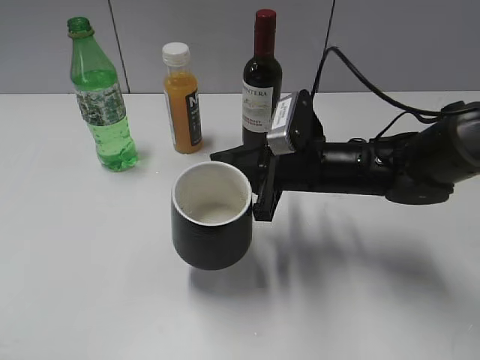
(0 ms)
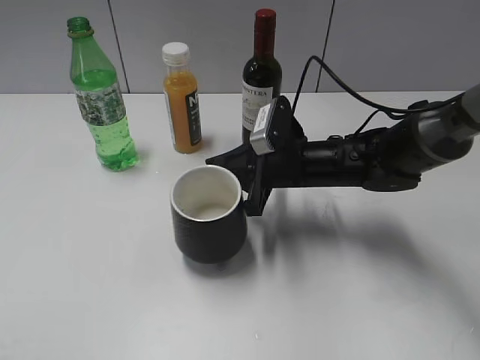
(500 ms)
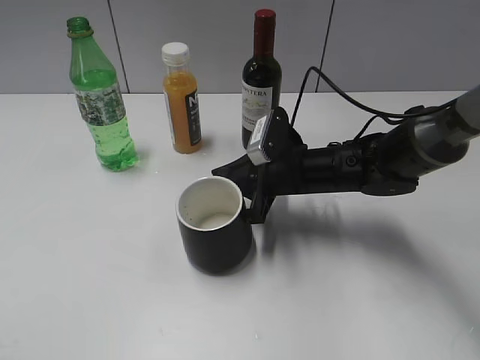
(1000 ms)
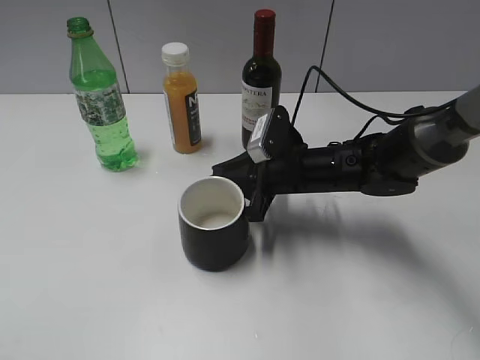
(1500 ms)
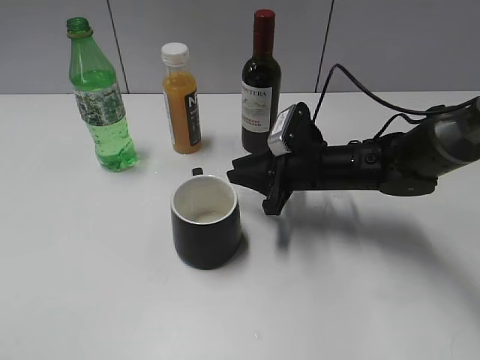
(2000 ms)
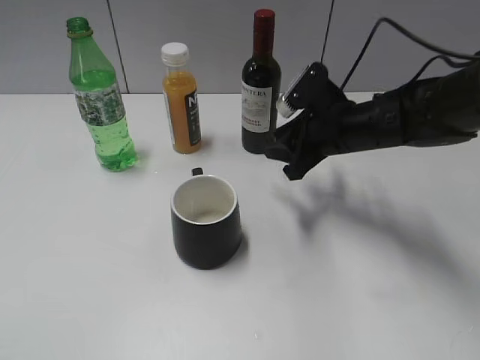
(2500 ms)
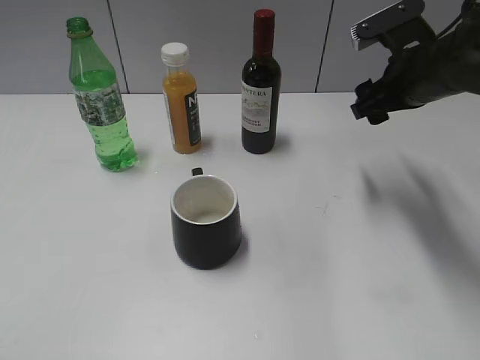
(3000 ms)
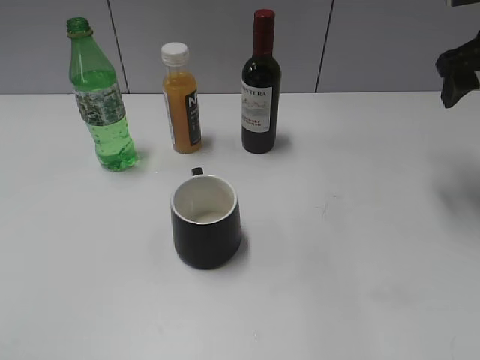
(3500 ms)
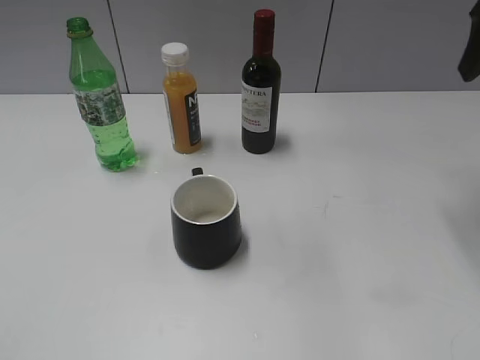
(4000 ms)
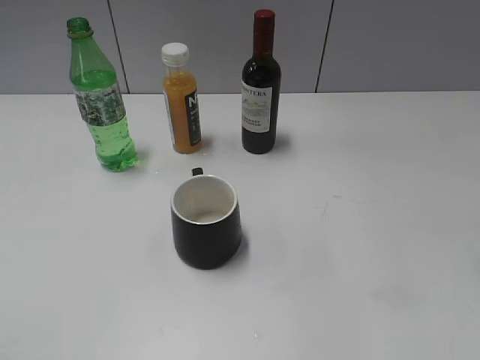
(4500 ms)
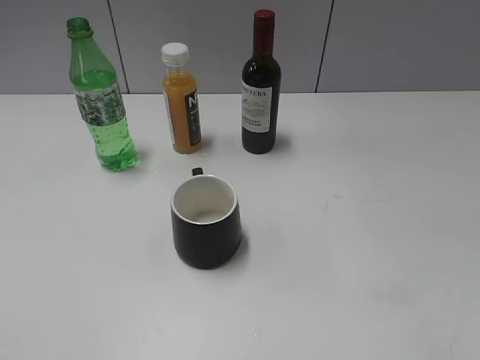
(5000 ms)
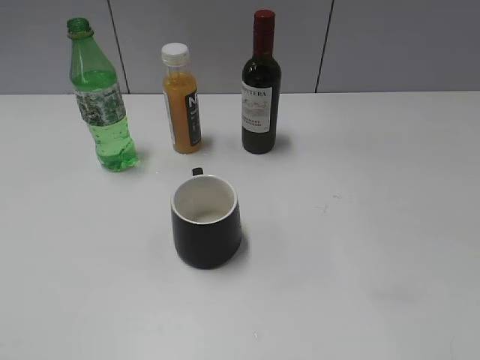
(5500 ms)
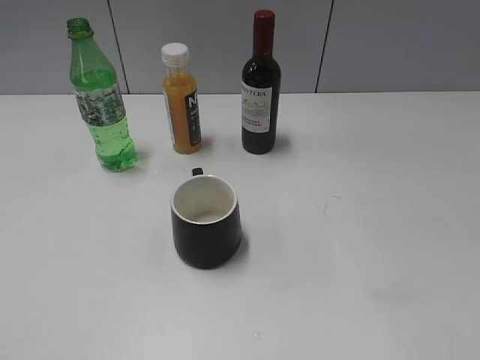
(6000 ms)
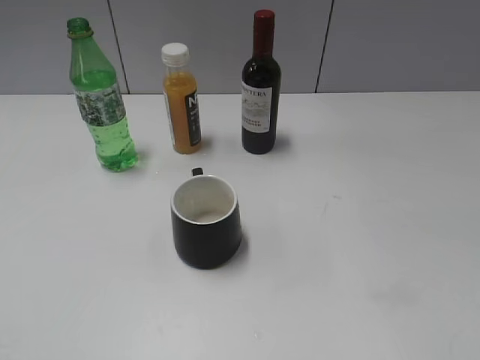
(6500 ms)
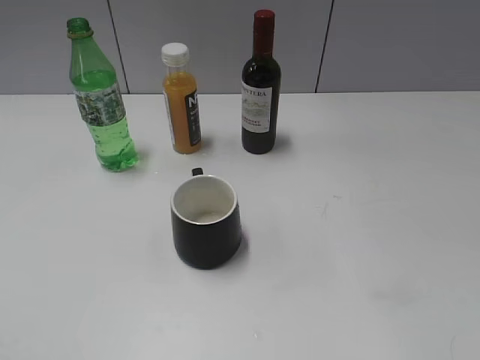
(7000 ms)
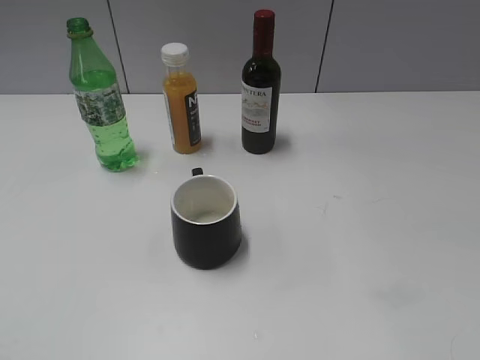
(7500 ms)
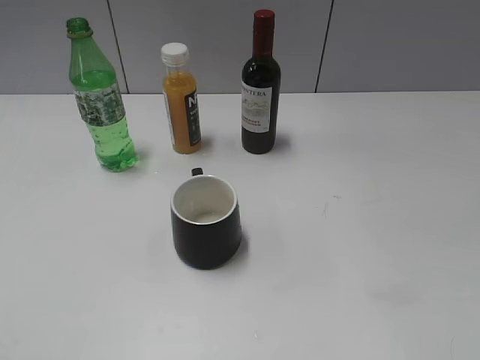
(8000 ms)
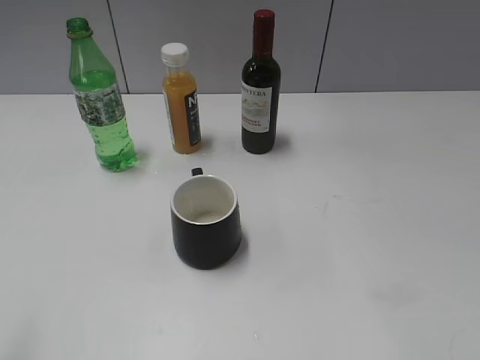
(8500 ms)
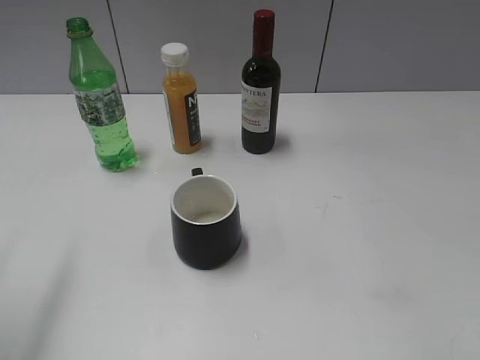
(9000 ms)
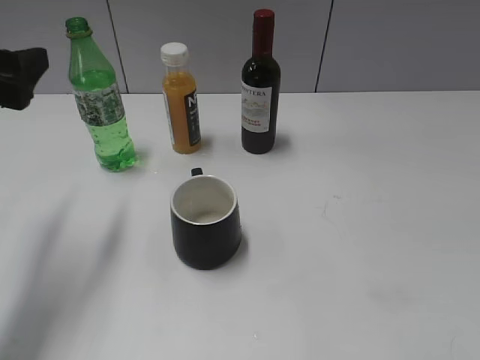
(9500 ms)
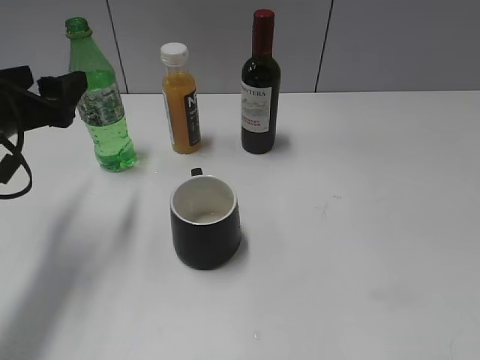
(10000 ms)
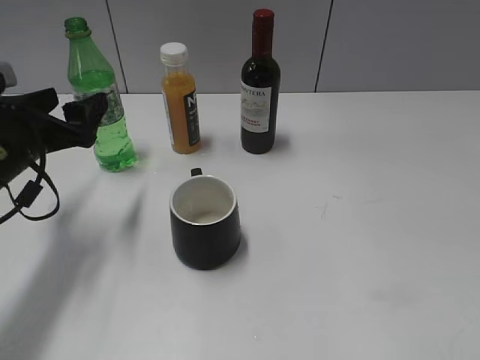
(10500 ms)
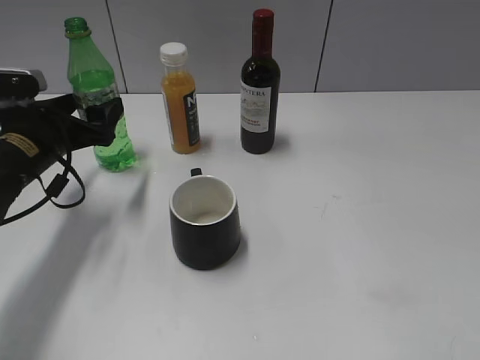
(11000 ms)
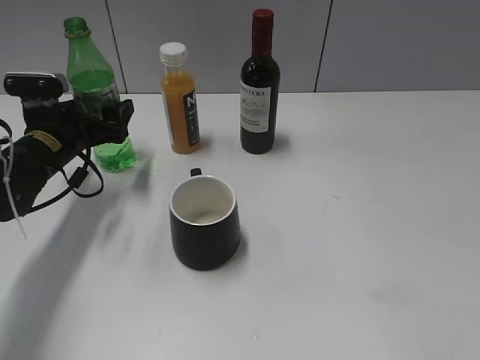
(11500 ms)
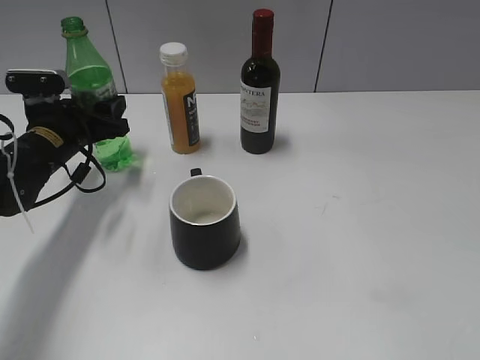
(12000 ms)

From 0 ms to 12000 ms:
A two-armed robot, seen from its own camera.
From 0 ms to 2000 ms: The right gripper ends up some 5 cm from where it was.
From 2000 ms to 4000 ms: The right gripper travels upward and to the right by roughly 30 cm, and opens up.
From 4000 ms to 6000 ms: The right gripper shifts approximately 30 cm backward.
From 8000 ms to 10000 ms: The left gripper moves forward, roughly 30 cm.
From 10000 ms to 12000 ms: The left gripper heads forward and downward, covering approximately 15 cm, and closes up.

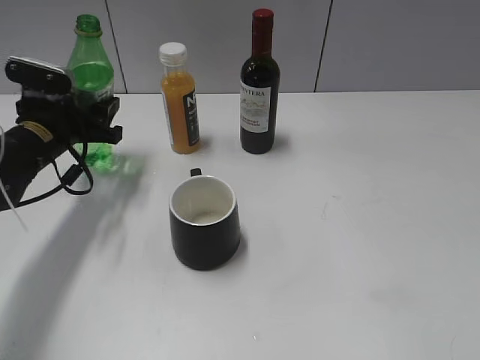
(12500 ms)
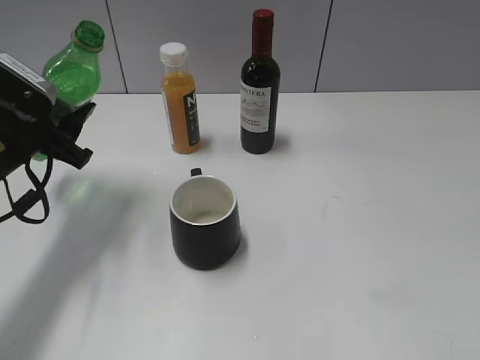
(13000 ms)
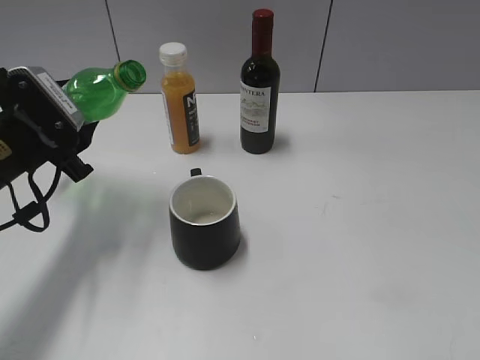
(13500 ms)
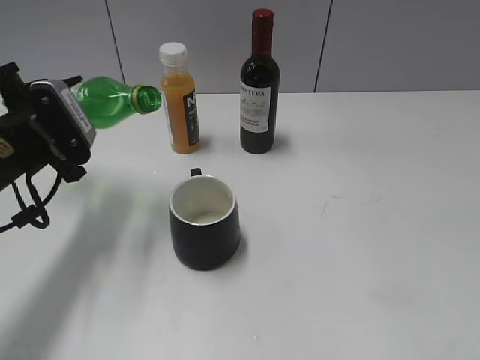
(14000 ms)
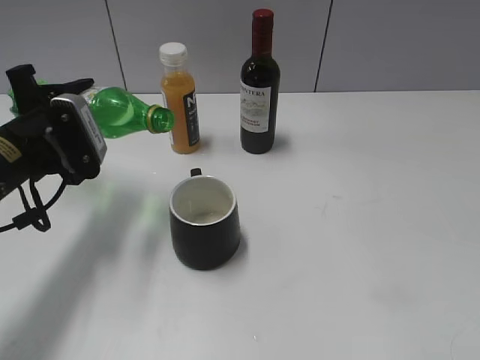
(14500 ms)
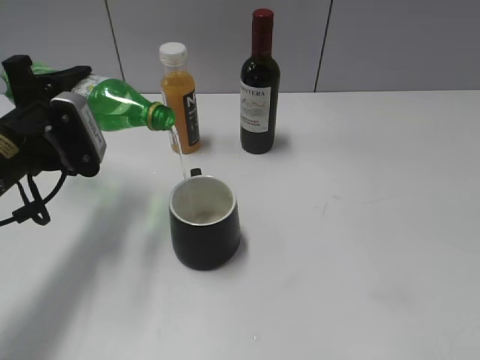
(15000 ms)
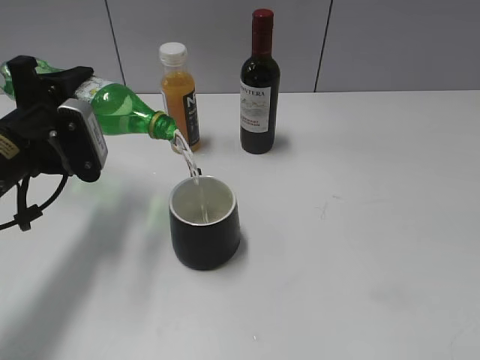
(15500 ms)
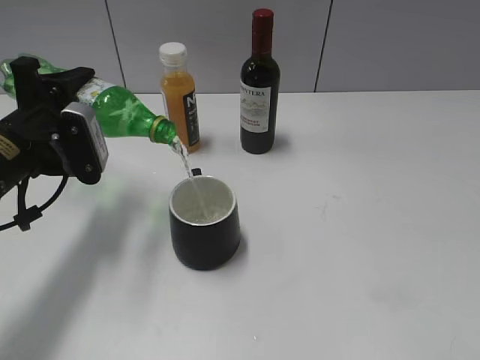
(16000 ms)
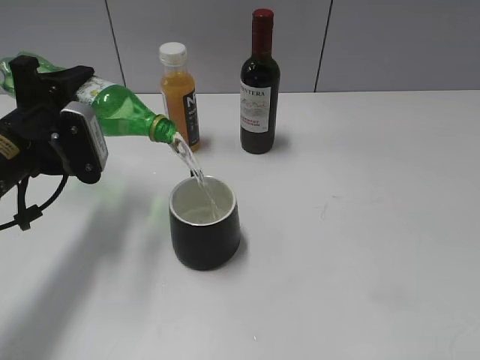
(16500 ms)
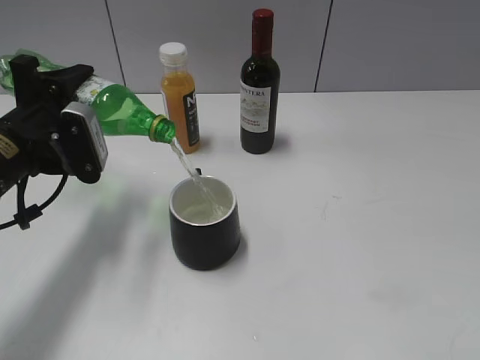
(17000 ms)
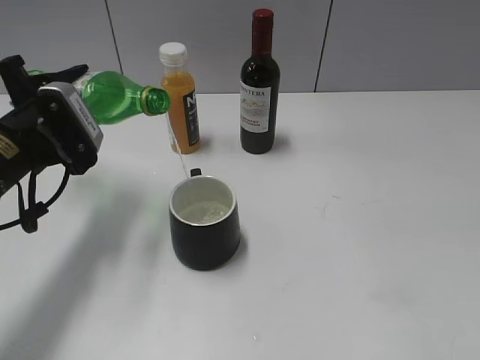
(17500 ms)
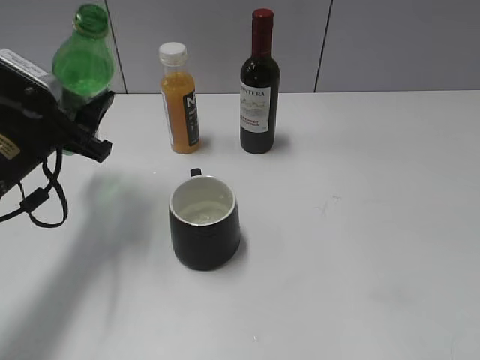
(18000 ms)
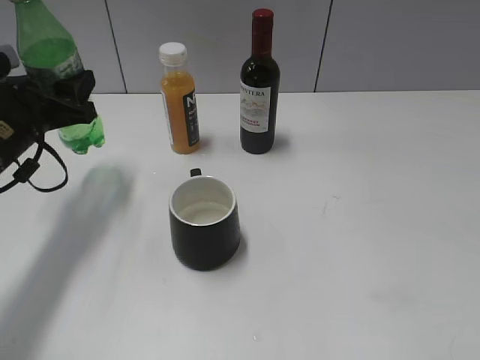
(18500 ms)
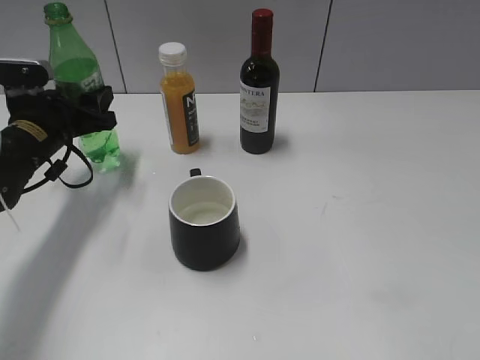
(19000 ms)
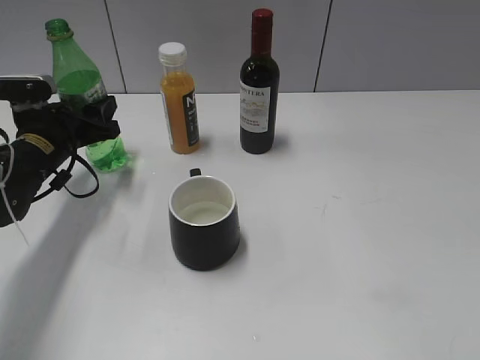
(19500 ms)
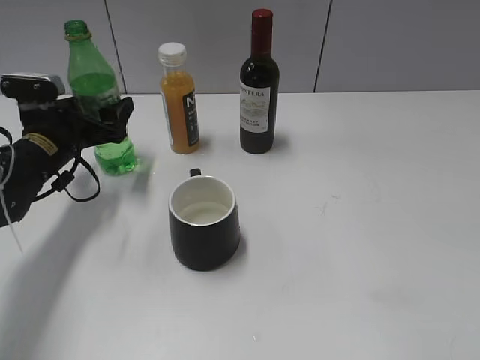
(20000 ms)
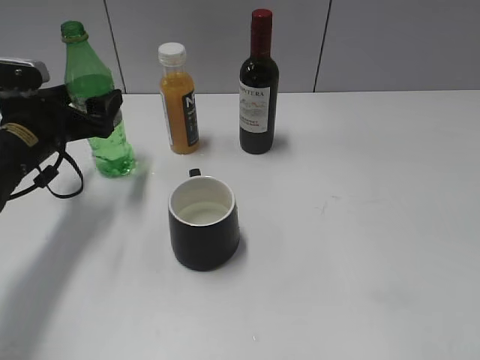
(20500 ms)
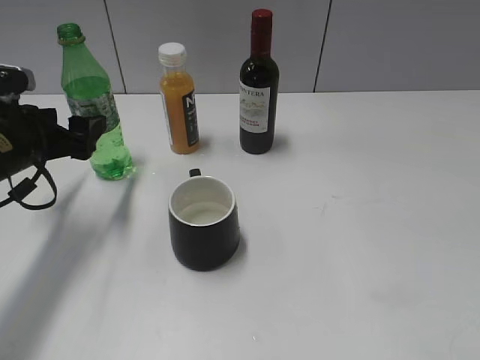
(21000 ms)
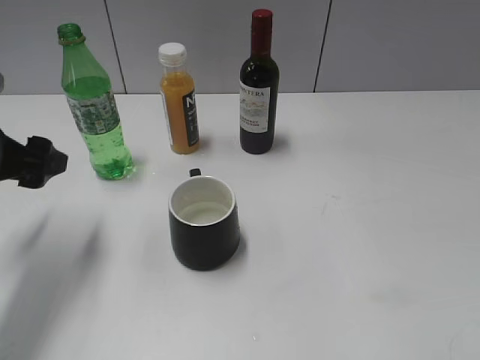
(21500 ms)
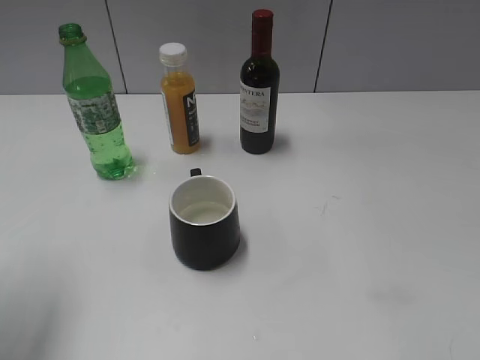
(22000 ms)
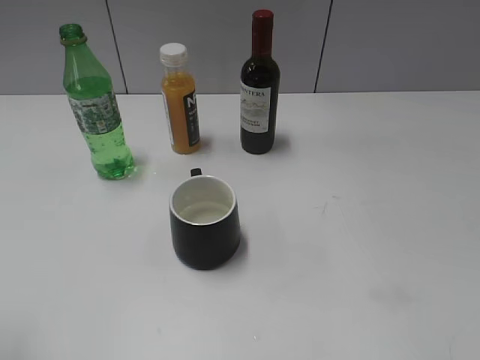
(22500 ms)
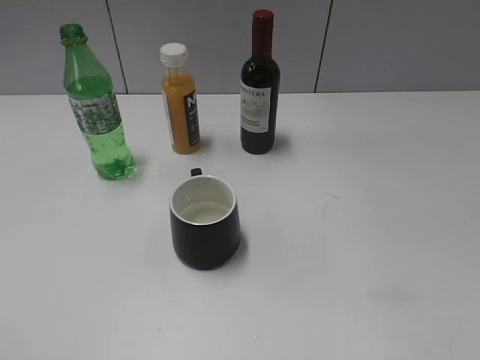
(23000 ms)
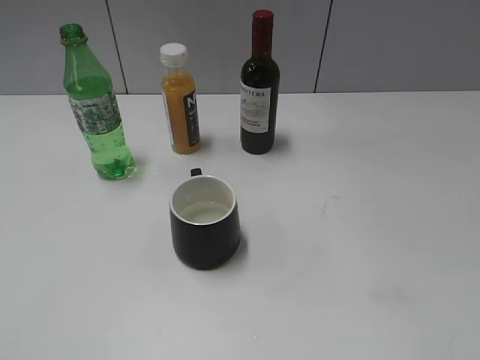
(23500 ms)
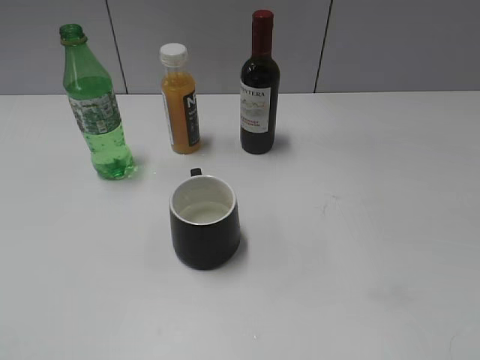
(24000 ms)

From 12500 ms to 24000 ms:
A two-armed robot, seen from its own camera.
Step, from 12500 ms to 17500 ms: Pour the sprite from bottle to cup with left gripper.
Step, from 18000 ms to 20500 ms: Place the sprite bottle on the table with left gripper.
From 12500 ms to 14500 ms: The left gripper moves backward, roughly 5 cm.
From 14500 ms to 16500 ms: There are only small adjustments of the grippers.
From 18500 ms to 20000 ms: The left gripper is displaced downward by about 5 cm, and opens.
From 20000 ms to 22000 ms: The left gripper travels backward and upward by approximately 25 cm.
From 22000 ms to 24000 ms: The left gripper shifts approximately 20 cm backward.

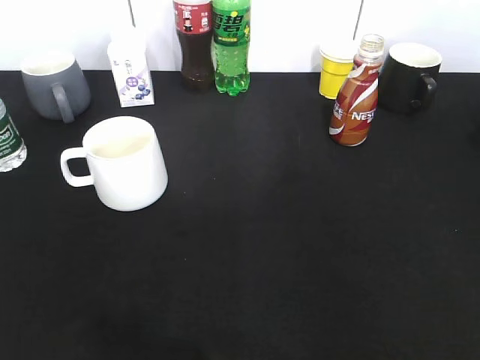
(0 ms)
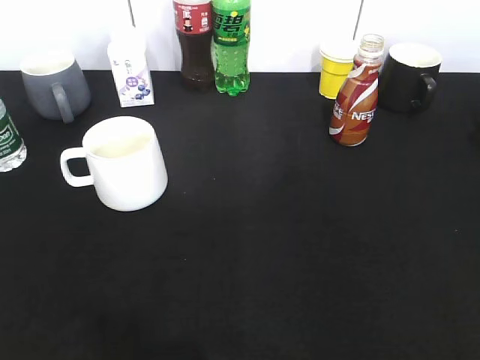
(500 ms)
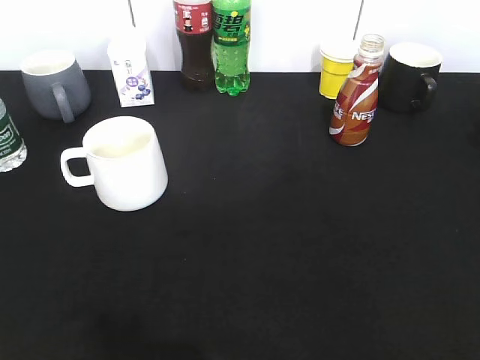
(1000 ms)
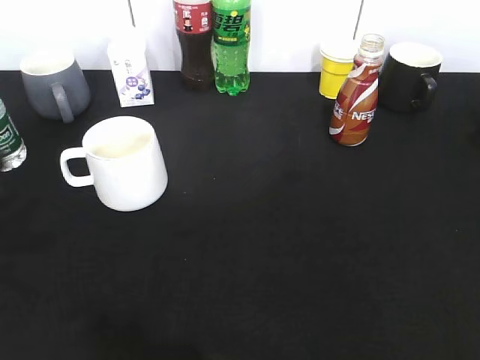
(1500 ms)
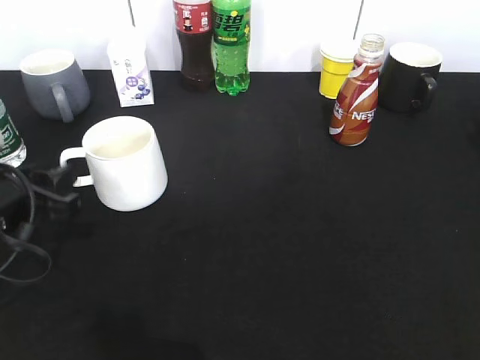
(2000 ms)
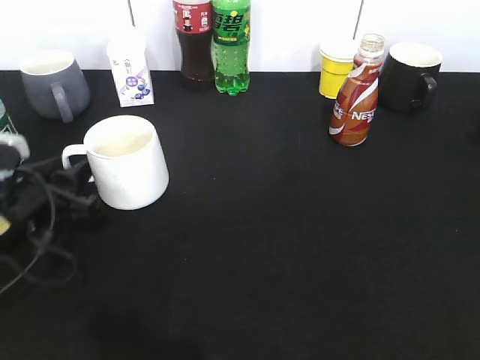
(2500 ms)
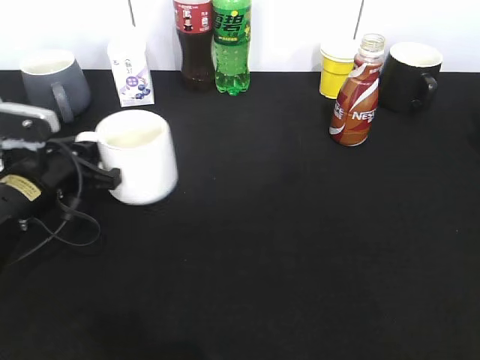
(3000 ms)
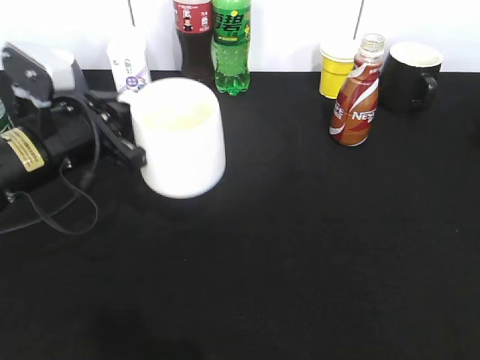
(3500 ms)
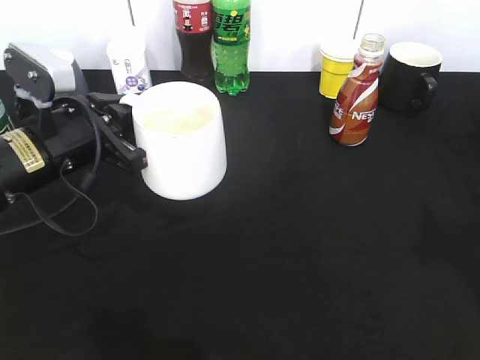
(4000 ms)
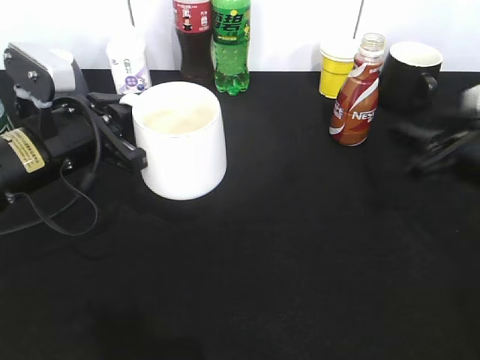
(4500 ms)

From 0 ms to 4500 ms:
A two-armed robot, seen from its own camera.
Step, from 1000 ms to 2500 ms: Grasp the white cup with left gripper.
Step, from 3000 ms to 3500 ms: Lift the white cup with left gripper.
From 0 ms to 2000 ms: The left gripper heads forward and downward, covering roughly 25 cm.
From 2000 ms to 4500 ms: The right gripper shifts roughly 30 cm forward and downward, while the left gripper travels to the right and forward by about 10 cm, and closes.
